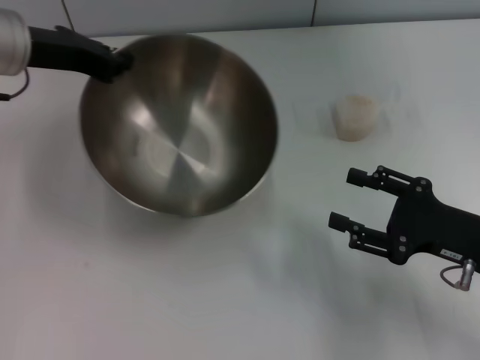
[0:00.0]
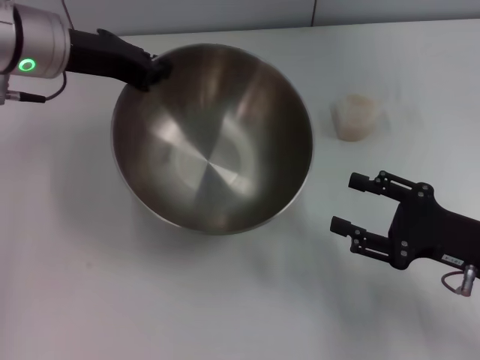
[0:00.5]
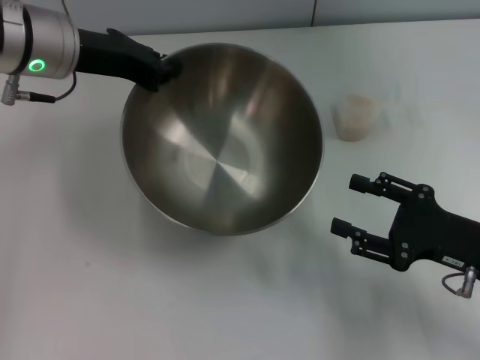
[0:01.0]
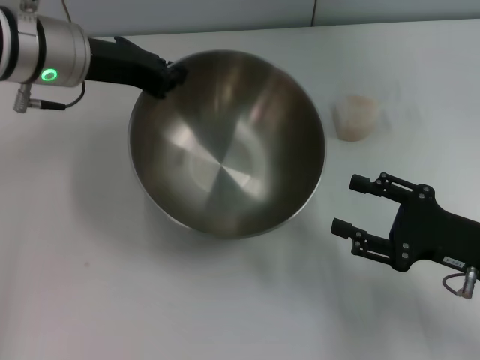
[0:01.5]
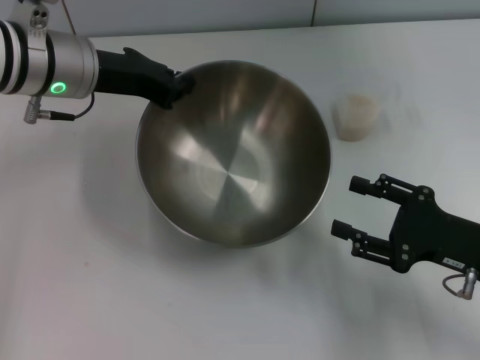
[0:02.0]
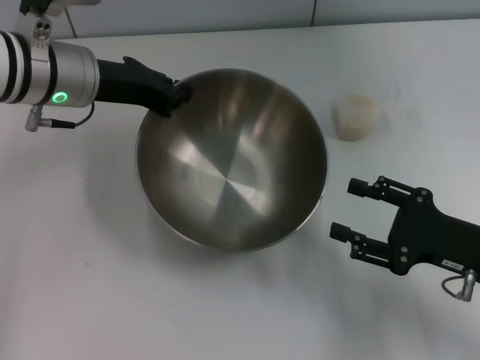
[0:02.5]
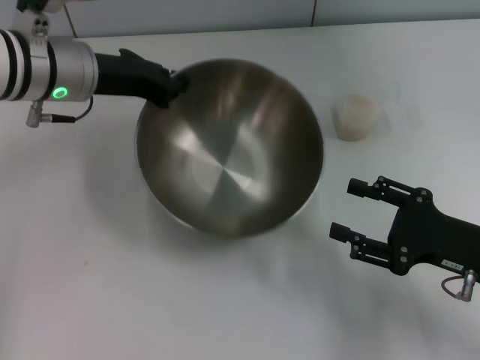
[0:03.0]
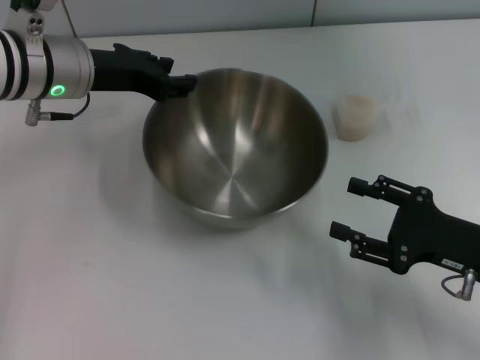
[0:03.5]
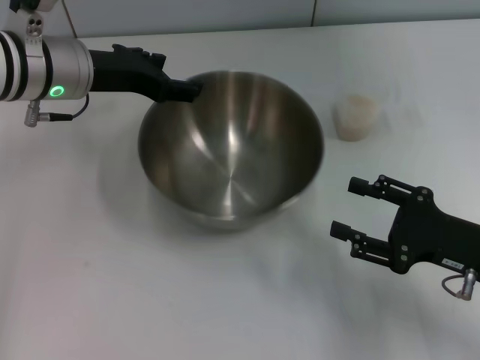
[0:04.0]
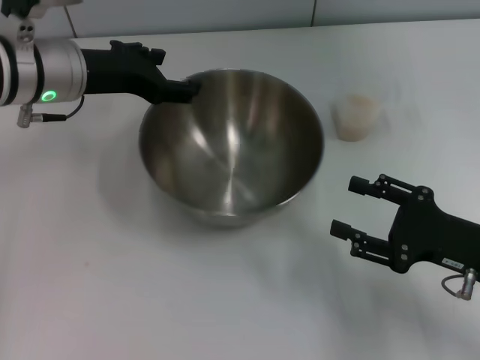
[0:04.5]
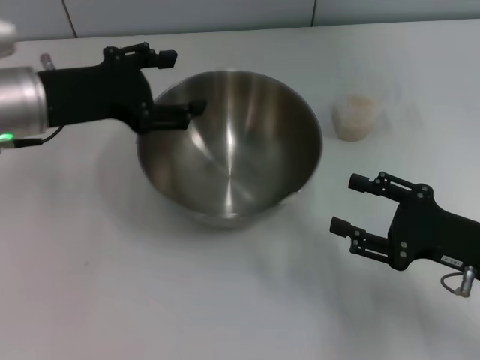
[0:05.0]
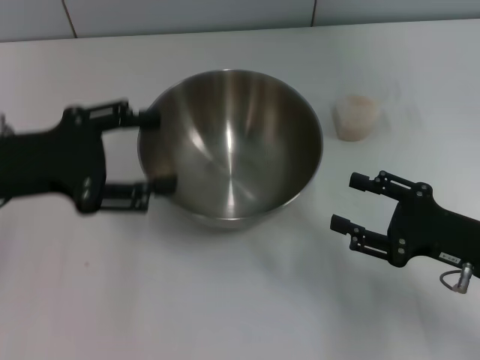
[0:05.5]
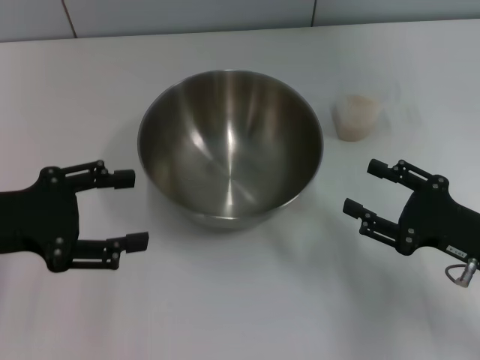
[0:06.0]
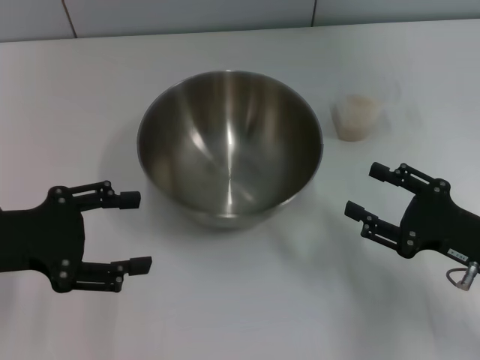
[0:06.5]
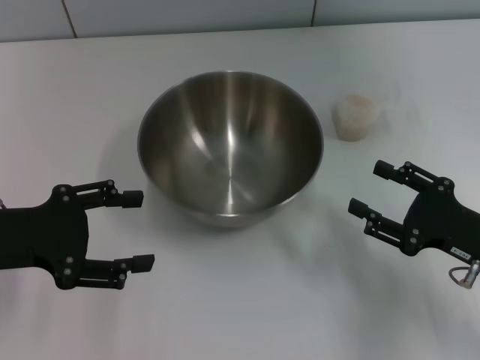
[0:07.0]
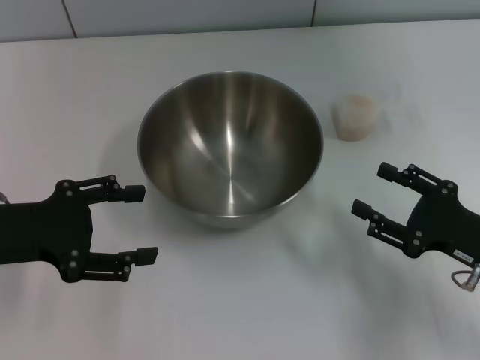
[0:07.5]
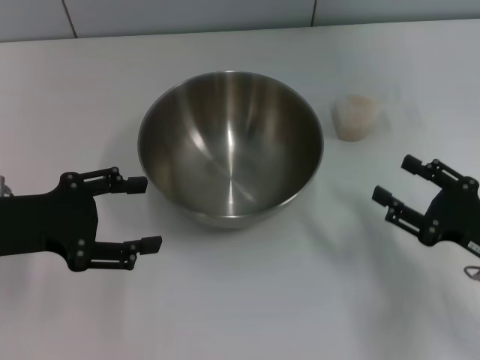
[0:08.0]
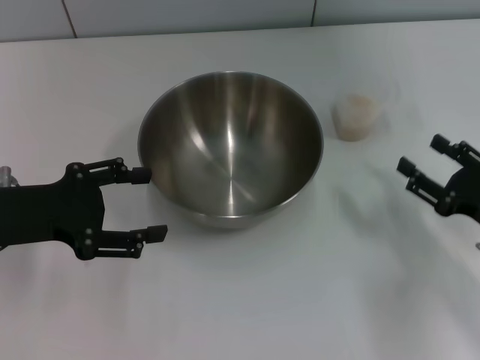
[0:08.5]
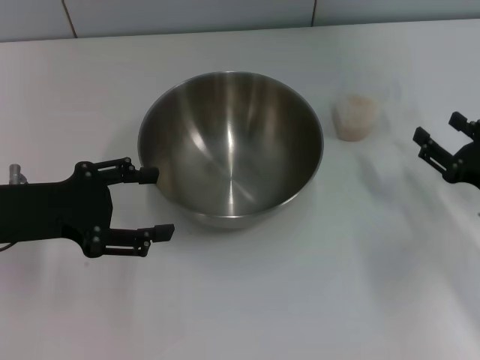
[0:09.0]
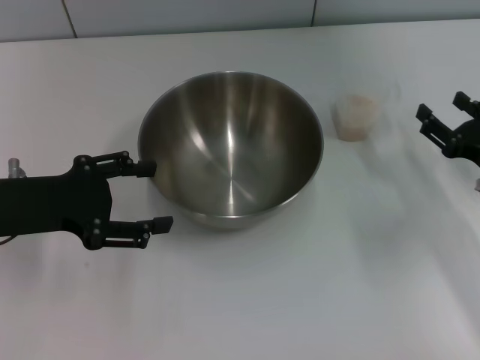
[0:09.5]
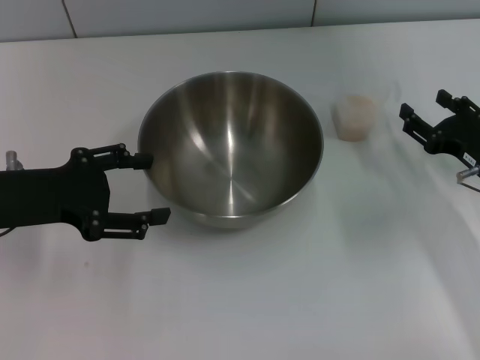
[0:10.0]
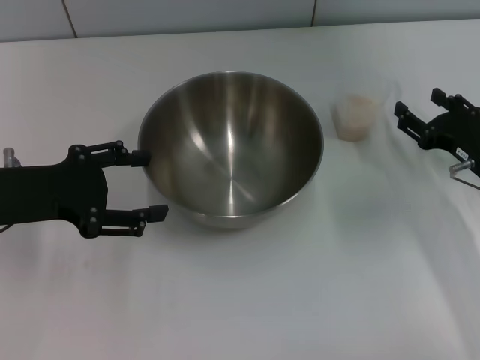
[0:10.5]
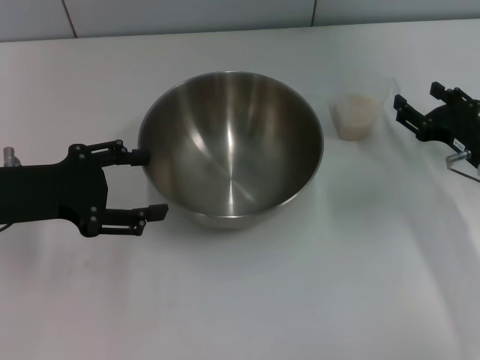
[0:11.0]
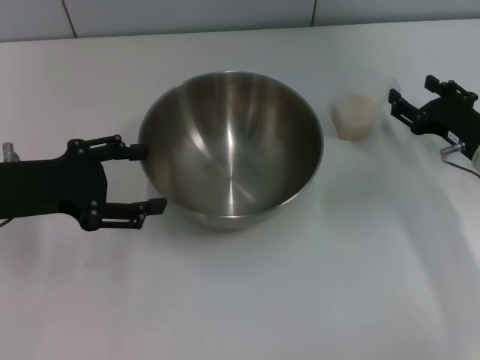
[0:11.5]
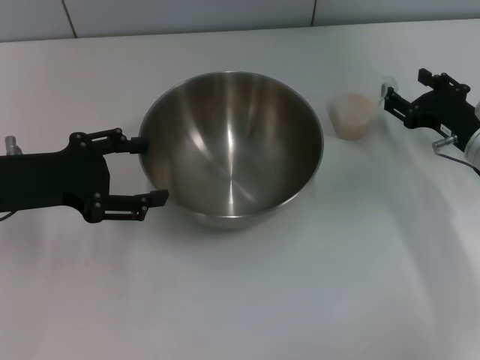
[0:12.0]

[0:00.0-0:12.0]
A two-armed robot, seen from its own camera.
Task of the whole recording: Place the bowl in the middle of the table with one hand and pour the rice from the grain cup into it with the other hand.
Step, 0:00.0 to 0:04.5: Place the bowl in the center of view with the left gripper.
0:00.0 to 0:02.0: The left gripper shifts by about 5 cm.
0:02.0 to 0:04.0: The left gripper opens.
0:04.0 to 0:06.0: The left gripper heads backward and to the left, covering roughly 20 cm.
0:06.0 to 0:08.0: The grippers stay close to where they were, moving slightly.
0:08.0 to 0:10.0: The right gripper travels forward by approximately 10 cm.
0:10.0 to 0:12.0: The grippers stay close to where they were, moving slightly.

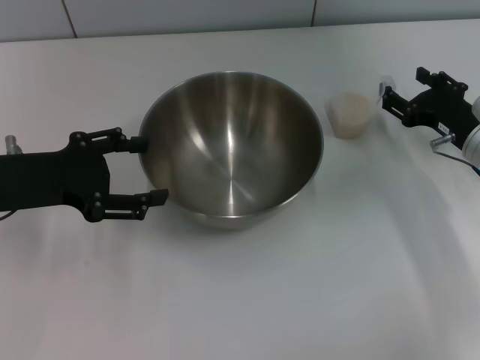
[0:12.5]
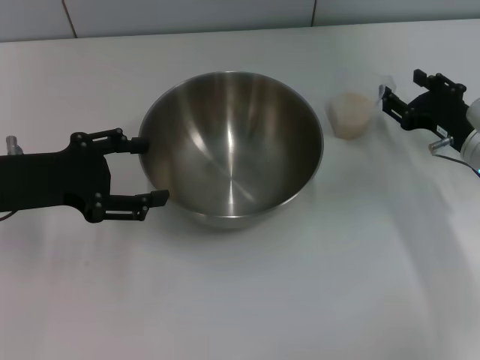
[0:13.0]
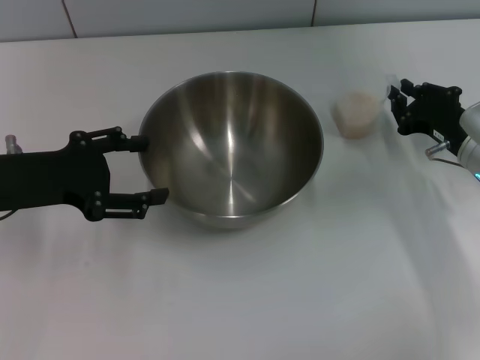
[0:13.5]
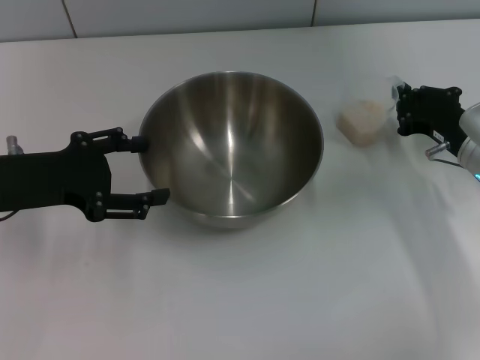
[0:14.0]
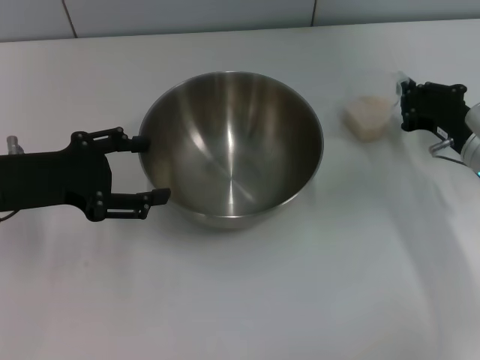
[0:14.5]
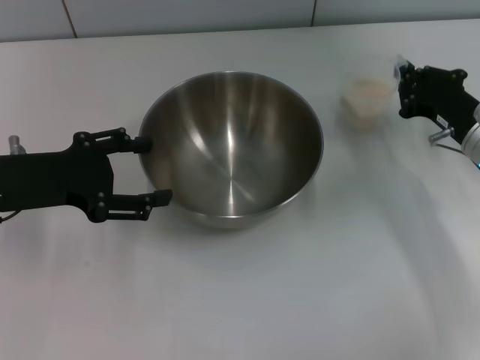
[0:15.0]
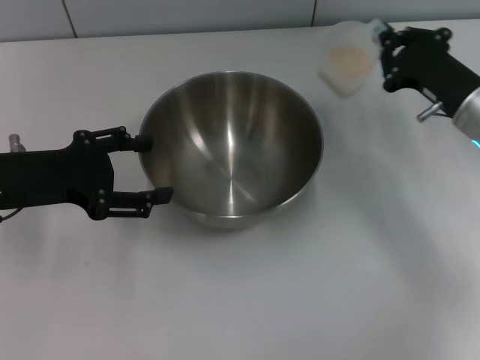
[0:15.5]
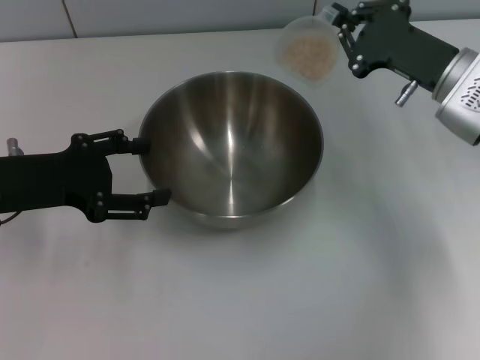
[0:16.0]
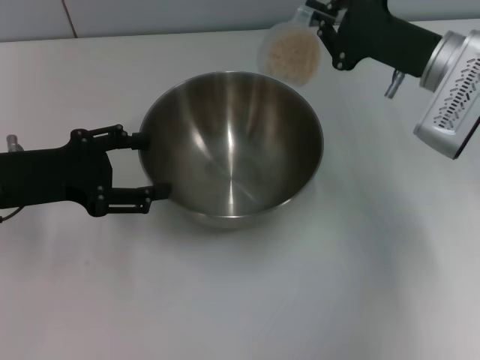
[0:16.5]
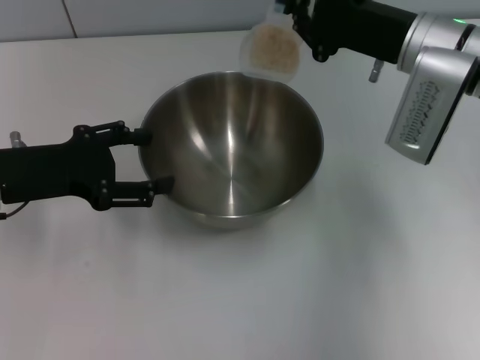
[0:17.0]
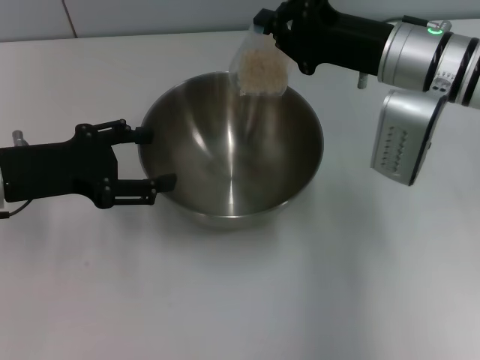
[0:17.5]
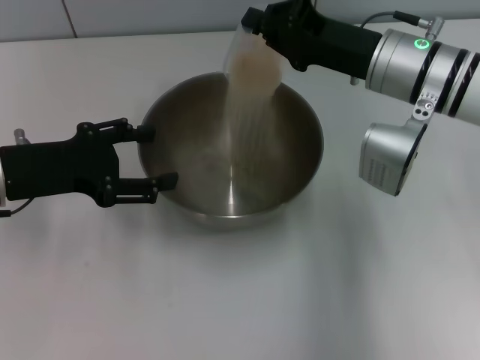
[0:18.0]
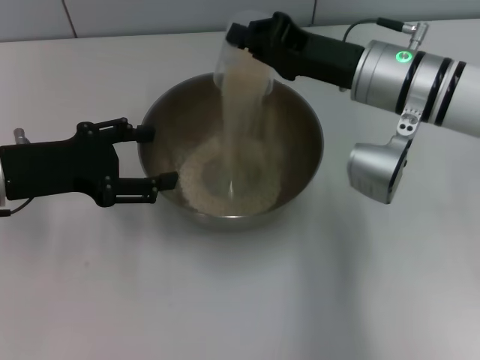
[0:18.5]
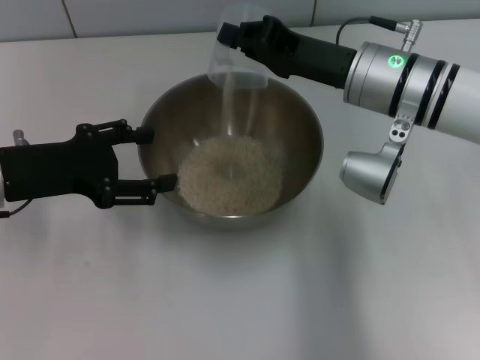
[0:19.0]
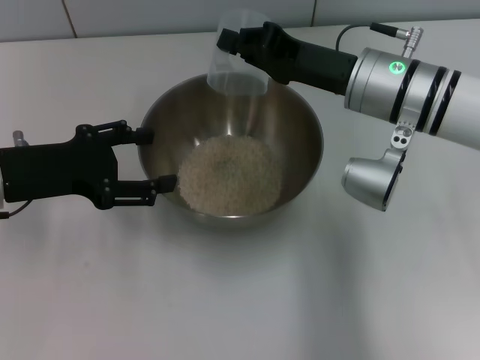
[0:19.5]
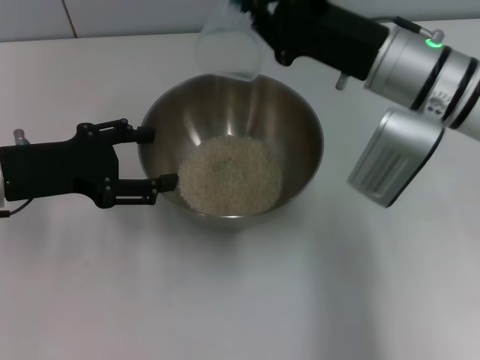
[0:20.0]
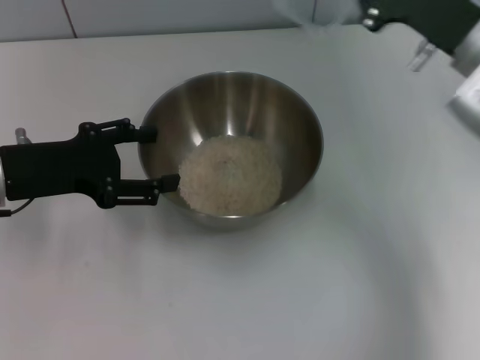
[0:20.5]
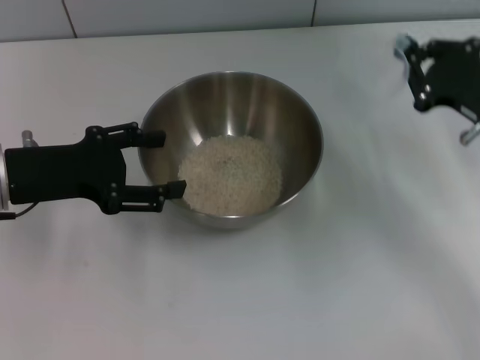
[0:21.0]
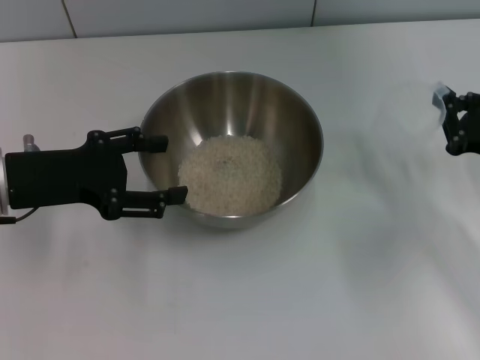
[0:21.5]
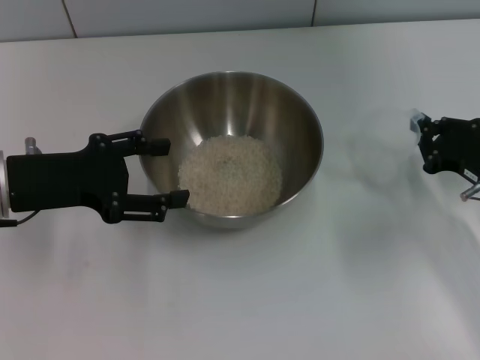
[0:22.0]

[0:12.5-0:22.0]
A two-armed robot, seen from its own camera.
Task of the whole recording: Place the bowl in the middle of the table with one hand and pour the rice from the grain cup into it with the other hand.
Step, 0:12.5 to 0:15.5: Pick up the cup with rice in it with the right gripper.
Step, 0:16.0 to 0:20.5: Pour the rice from the cup into the bowl with the right gripper.
0:12.5 to 0:14.5: The right gripper closes its fingers.
0:14.5 to 0:16.5: The right gripper moves upward and to the left, roughly 10 cm.
0:16.5 to 0:18.0: The right gripper shifts about 5 cm to the left.
0:20.0 to 0:22.0: The right gripper goes approximately 20 cm to the right, downward and backward.

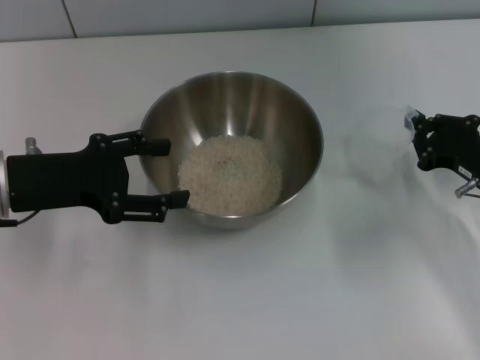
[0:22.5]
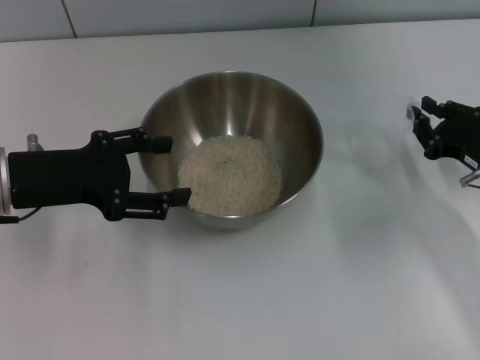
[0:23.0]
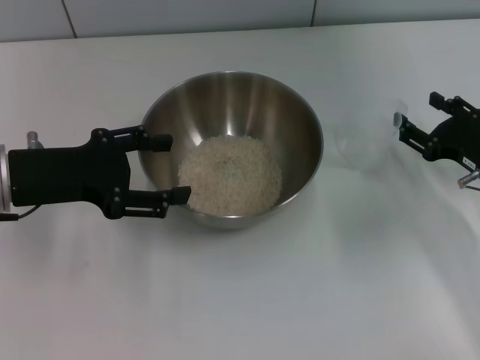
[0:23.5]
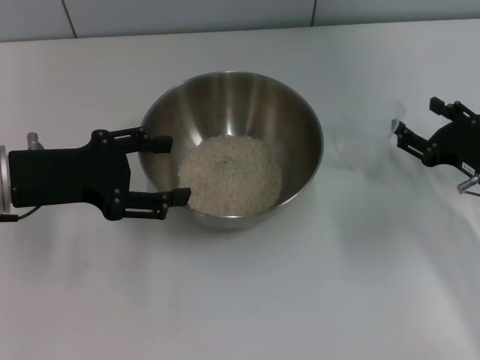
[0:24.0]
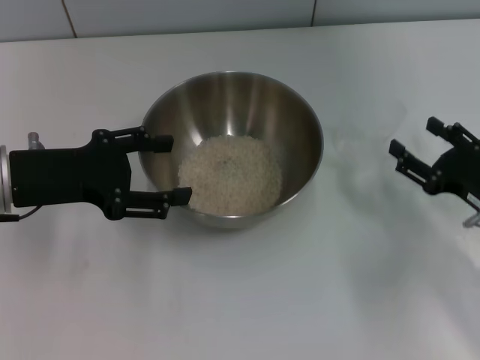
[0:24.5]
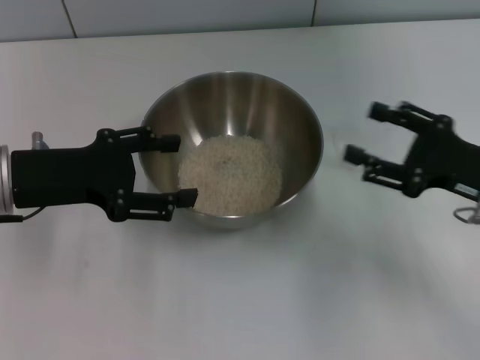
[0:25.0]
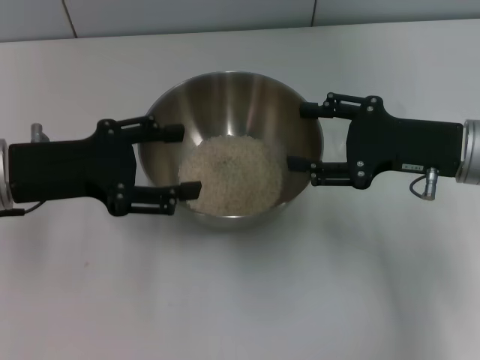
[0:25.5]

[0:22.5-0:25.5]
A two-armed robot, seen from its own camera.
Task of the whole recording: Place the bowl in the middle of the table with one hand and pour the rice from the grain cup into it with the other hand.
Step, 0:22.5 to 0:24.5: Place the cup on the table with the right gripper.
0:22.5 to 0:24.0: The right gripper opens.
0:24.0 to 0:25.5: The right gripper shifts about 10 cm upward and to the left.
